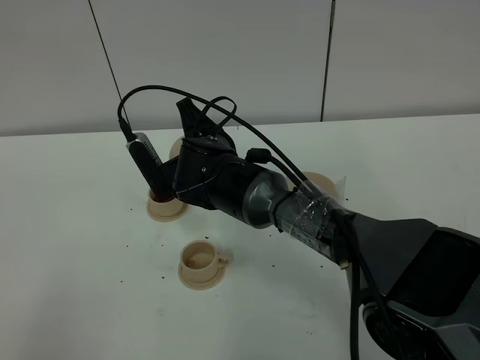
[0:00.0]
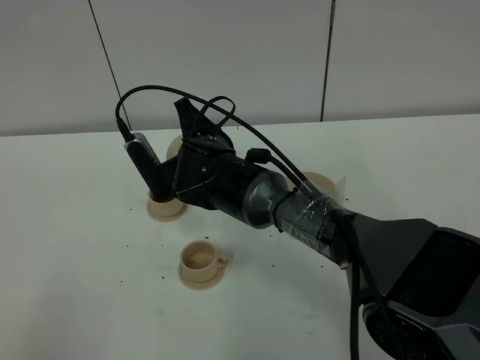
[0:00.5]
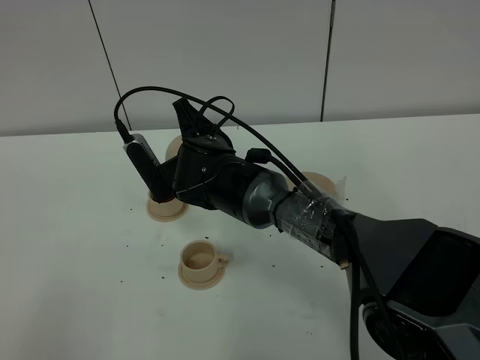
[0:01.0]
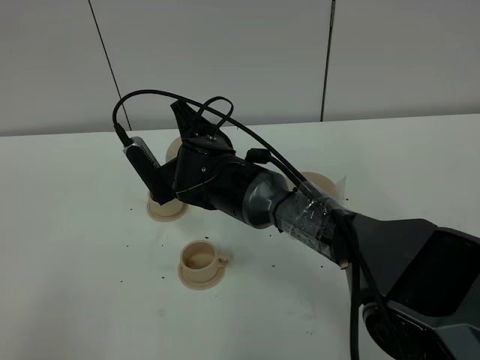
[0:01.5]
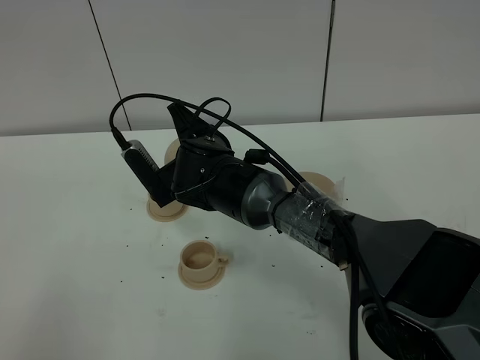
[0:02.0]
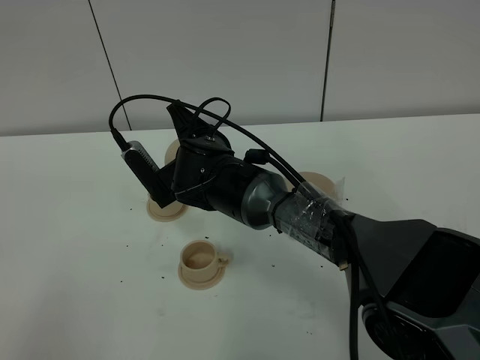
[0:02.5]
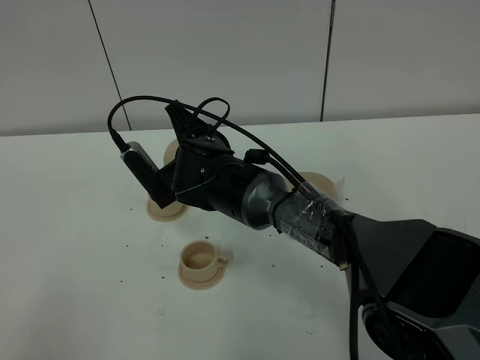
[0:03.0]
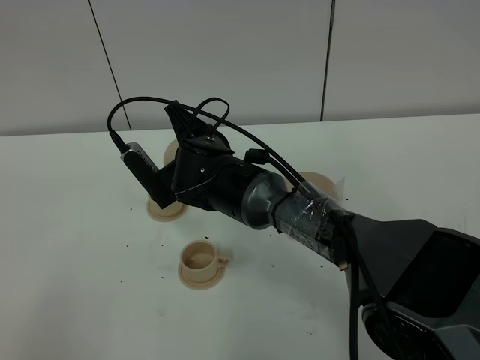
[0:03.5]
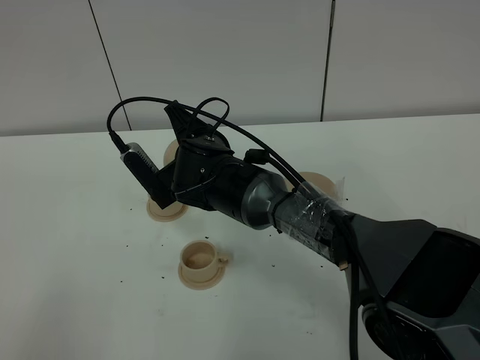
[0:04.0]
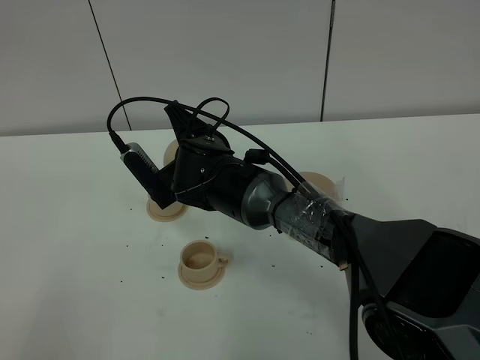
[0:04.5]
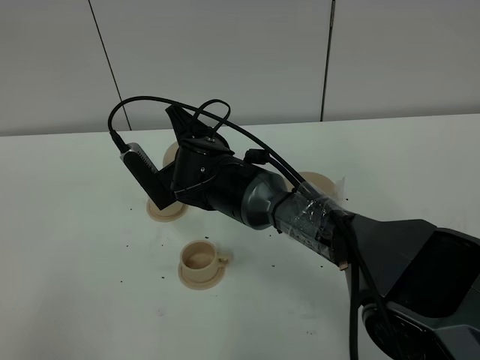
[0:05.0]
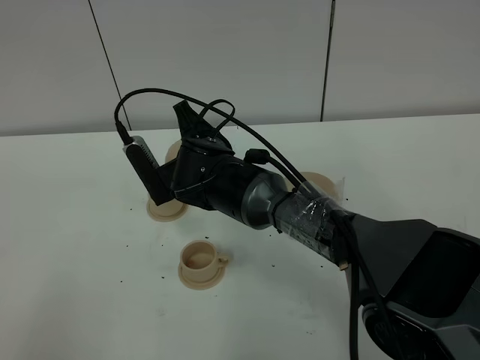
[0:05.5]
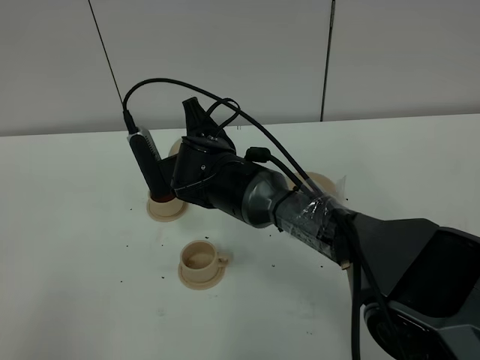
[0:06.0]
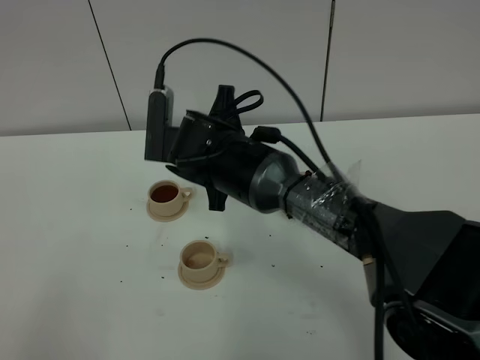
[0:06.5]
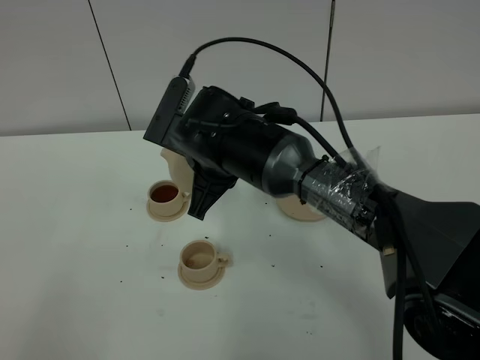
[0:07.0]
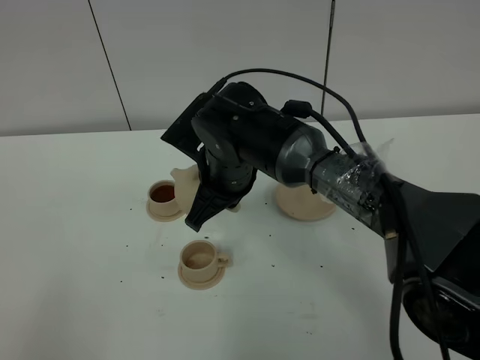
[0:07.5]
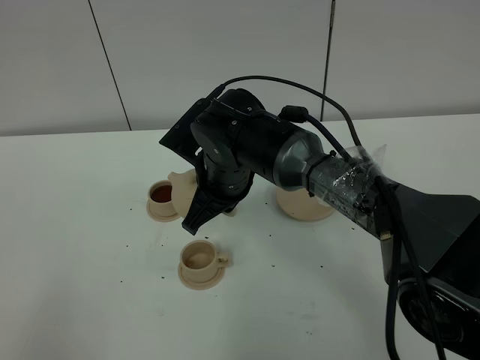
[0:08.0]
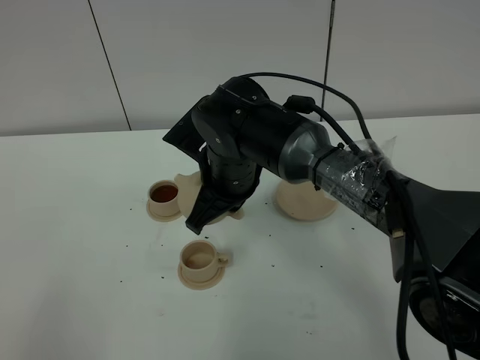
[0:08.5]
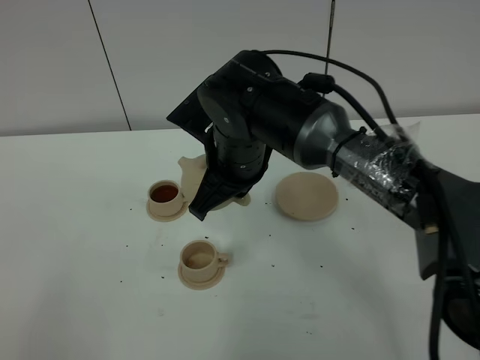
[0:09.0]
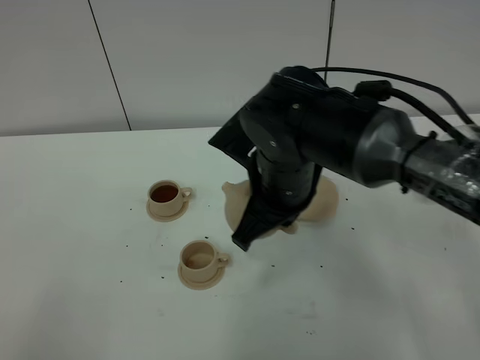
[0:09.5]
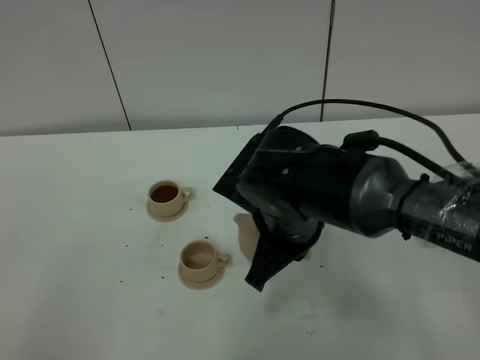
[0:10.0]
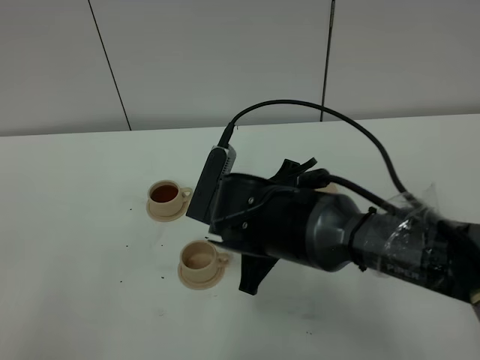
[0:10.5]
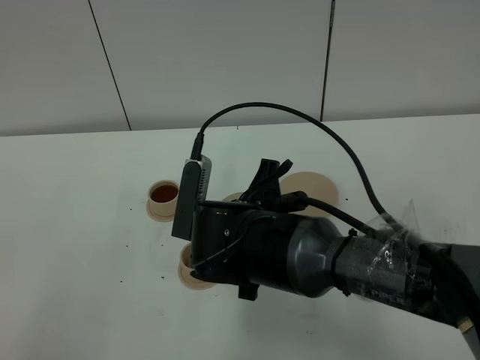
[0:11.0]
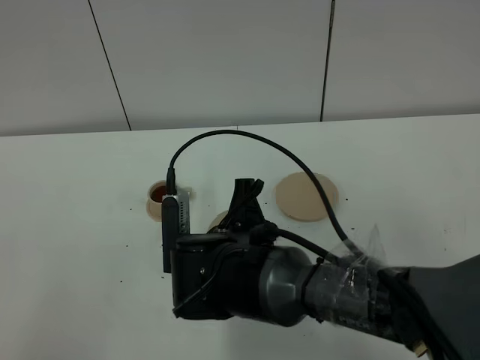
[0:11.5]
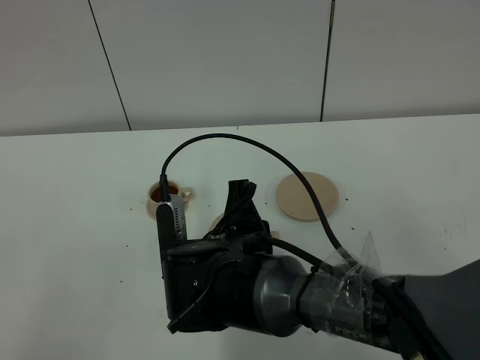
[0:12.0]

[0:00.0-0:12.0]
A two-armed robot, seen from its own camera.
Task of the whole recording: grasp the brown teapot and pour the tea into the two brown teacups one by one, put the brown teapot back in its original place.
0:00.0 to 0:02.0: The grippers make only small movements.
0:02.0 to 0:04.0: The two grippers keep their place.
0:04.0 to 0:06.0: The grippers make only small movements.
0:08.0 to 0:10.0: The right gripper shifts roughly 10 cm backward and to the right.
0:10.0 to 0:12.0: The right gripper travels to the left by about 5 cm.

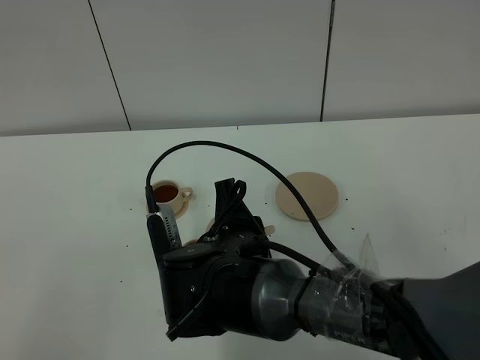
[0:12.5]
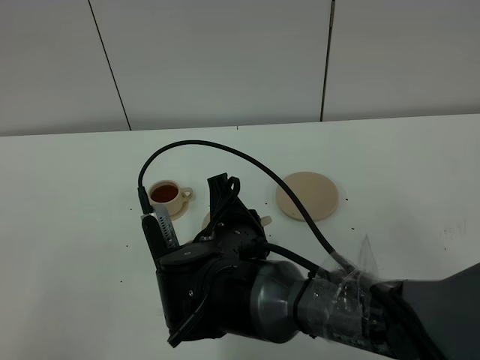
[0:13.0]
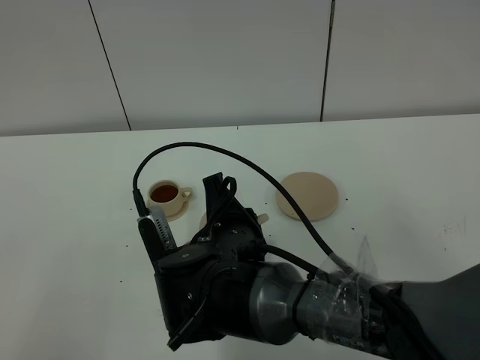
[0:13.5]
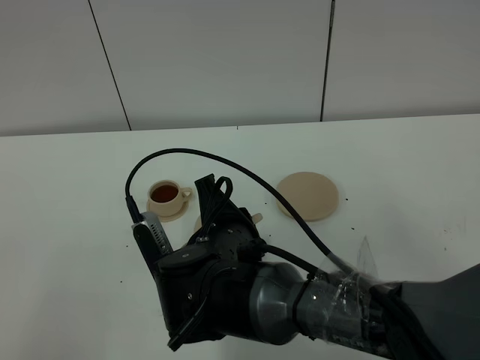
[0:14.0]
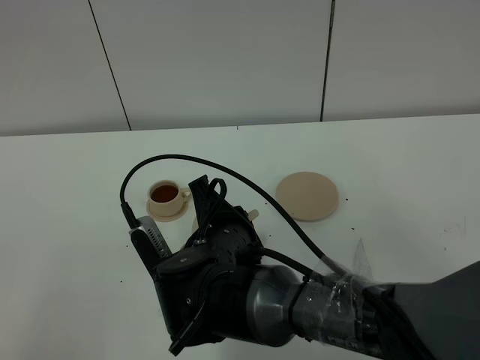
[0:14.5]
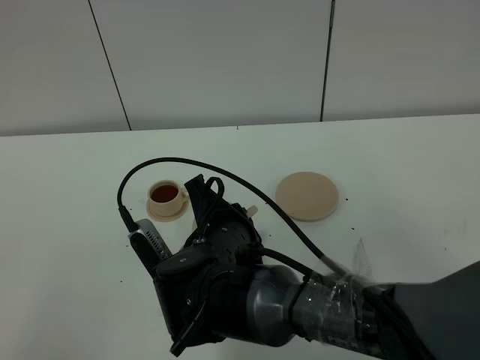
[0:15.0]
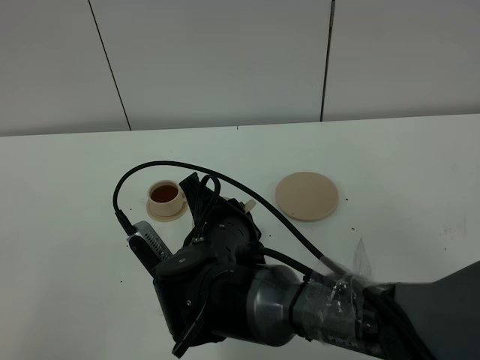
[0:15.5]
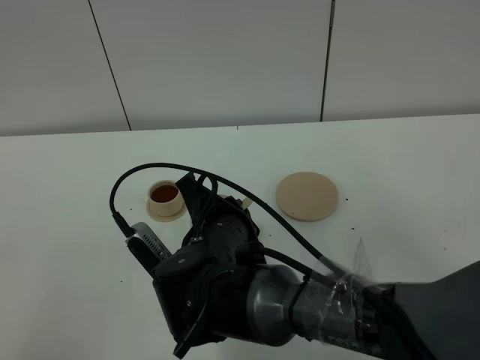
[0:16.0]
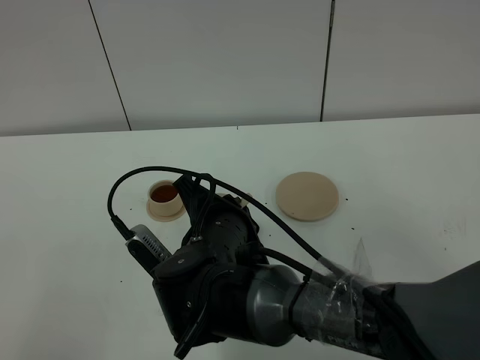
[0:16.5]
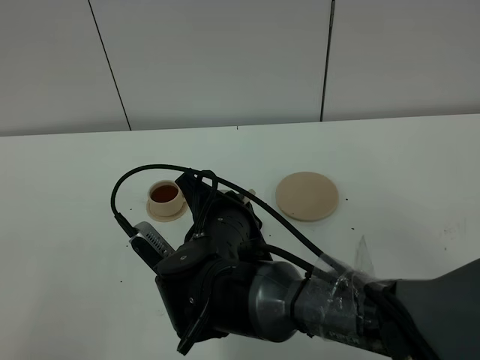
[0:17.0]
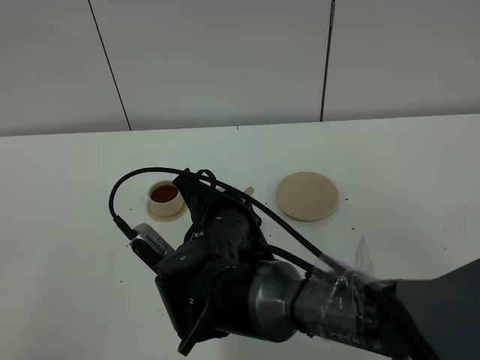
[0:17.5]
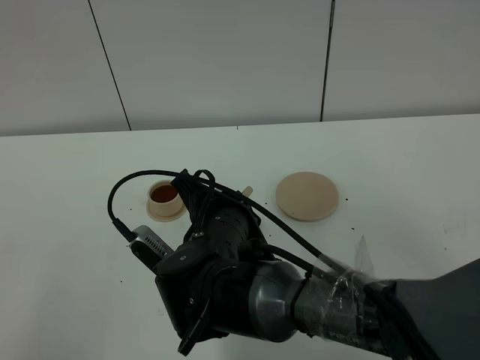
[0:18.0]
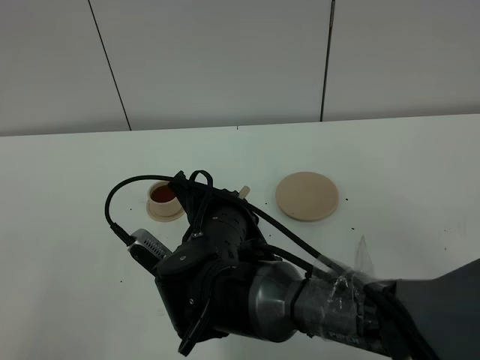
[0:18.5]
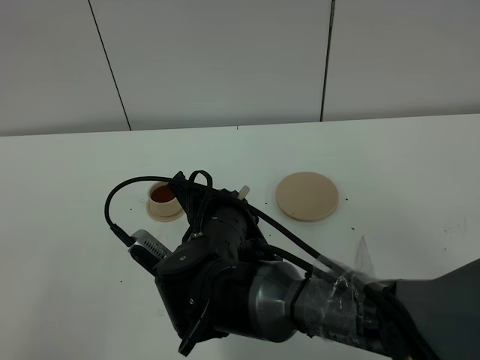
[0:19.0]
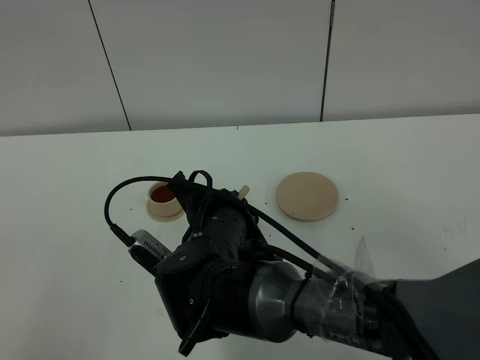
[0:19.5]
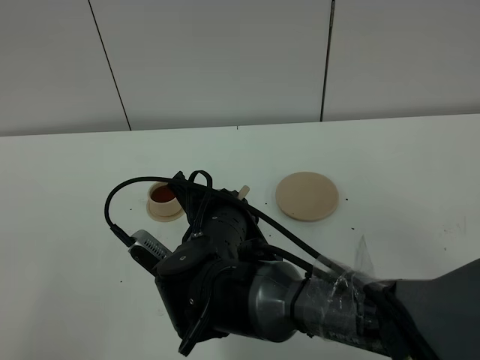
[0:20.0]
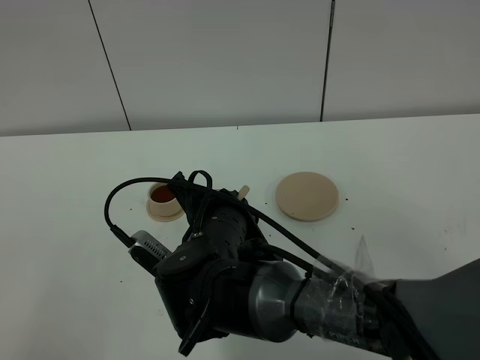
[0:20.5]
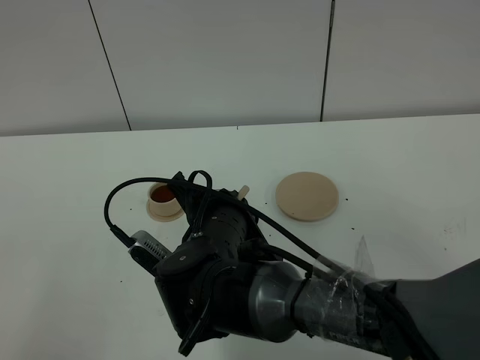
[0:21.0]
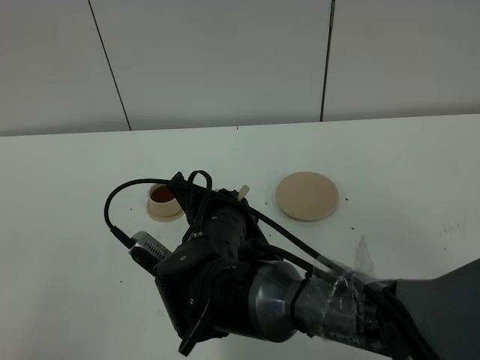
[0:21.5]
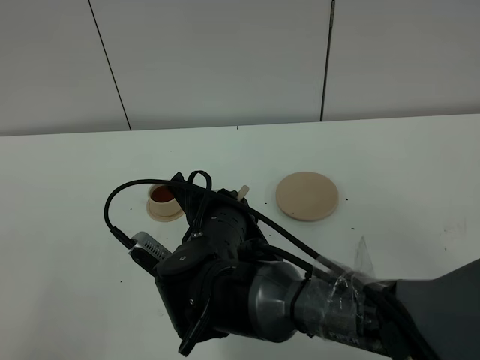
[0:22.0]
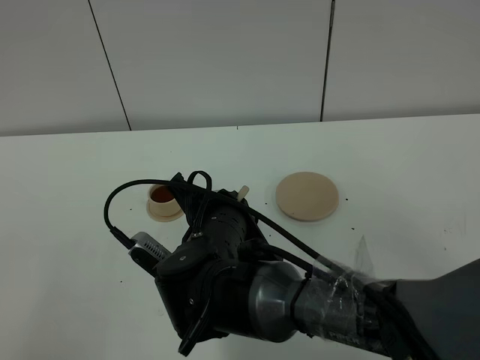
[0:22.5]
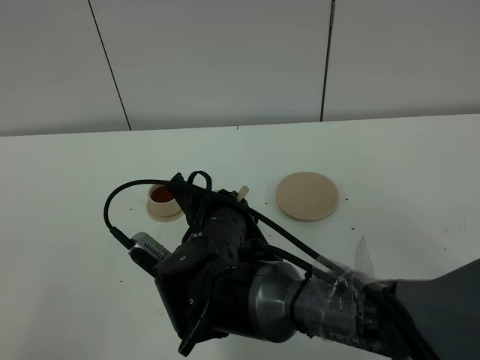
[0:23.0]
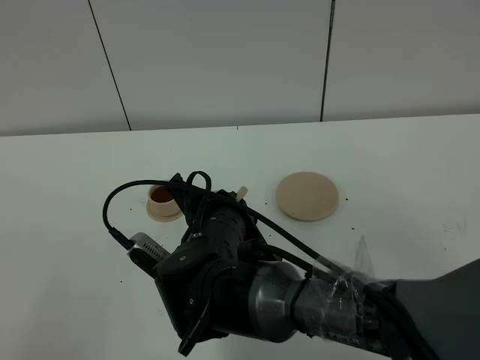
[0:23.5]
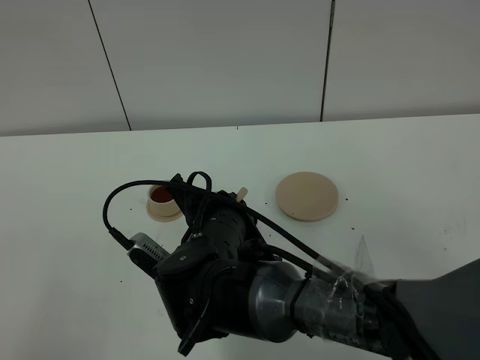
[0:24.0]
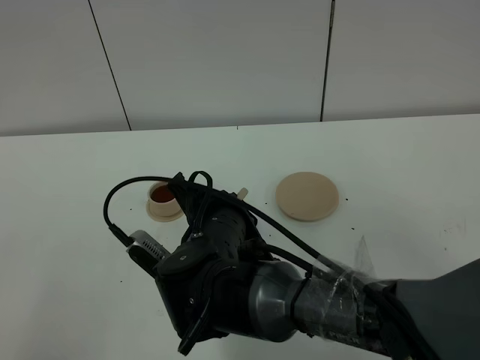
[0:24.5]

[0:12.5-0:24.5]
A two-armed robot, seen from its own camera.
Task of the whole recording: grasp the brown teapot and pour the tea into the two brown teacups one by one, put the brown teapot back in its original place.
0:12.5 to 0:14.5: There are only small adjustments of the grippers.
0:14.5 to 0:16.5: There are only small adjustments of the grippers.
0:16.5 to 0:18.5: The grippers make only small movements.
0:18.5 to 0:24.5: Both grippers stay about where they are.

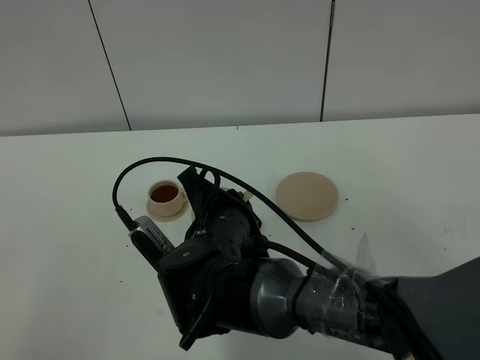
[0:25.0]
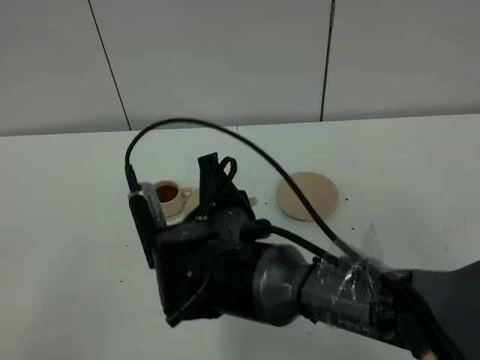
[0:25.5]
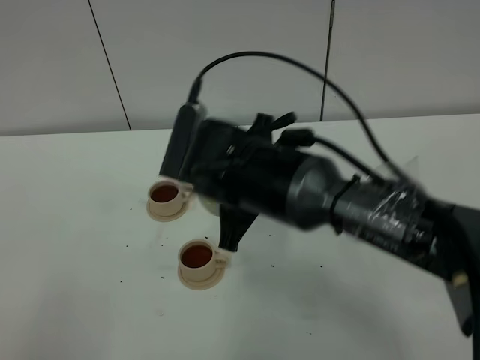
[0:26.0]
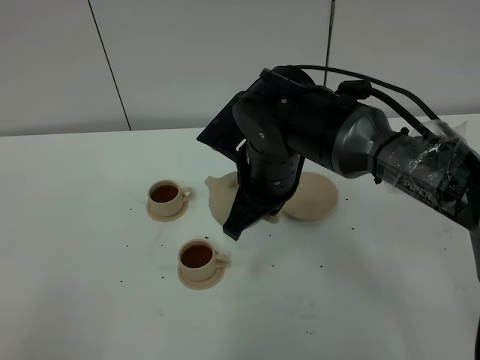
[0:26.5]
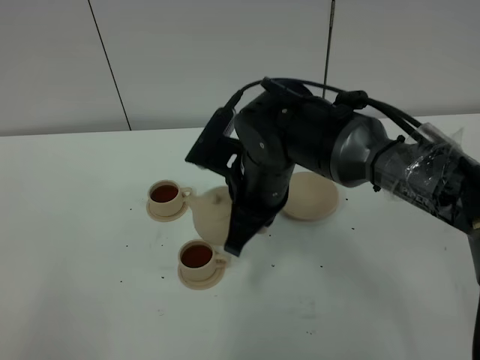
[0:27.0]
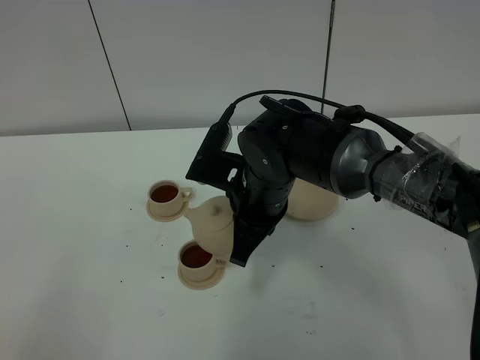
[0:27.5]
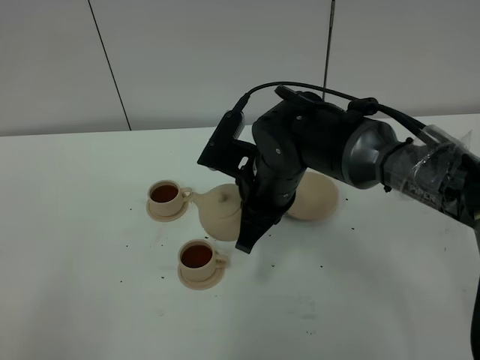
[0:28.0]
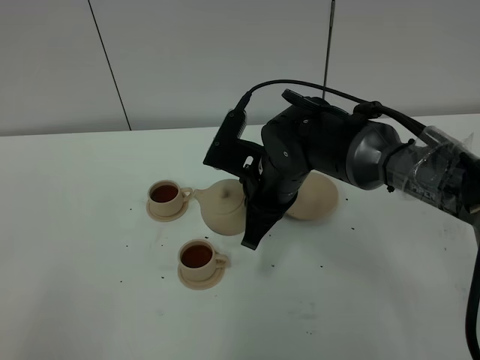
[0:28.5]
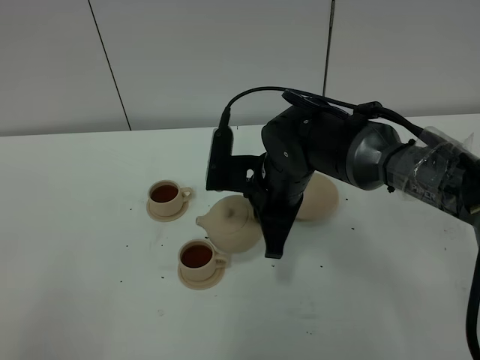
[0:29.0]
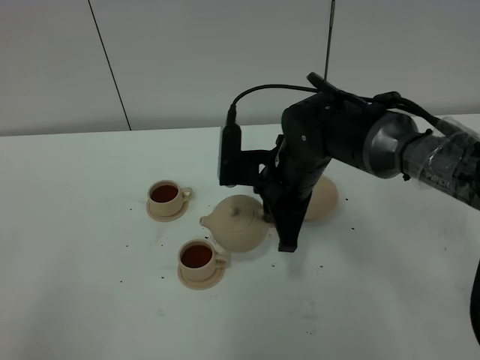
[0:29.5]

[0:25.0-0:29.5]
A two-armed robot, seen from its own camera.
Task of the whole recording: grasp the brown teapot and pour the tea into the two brown teacups one by one, put the brown teapot back in its original place.
0:25.0 to 0:27.0: The right gripper goes roughly 10 cm forward and to the right.
0:27.0 to 0:29.5: The right gripper moves approximately 5 cm.
